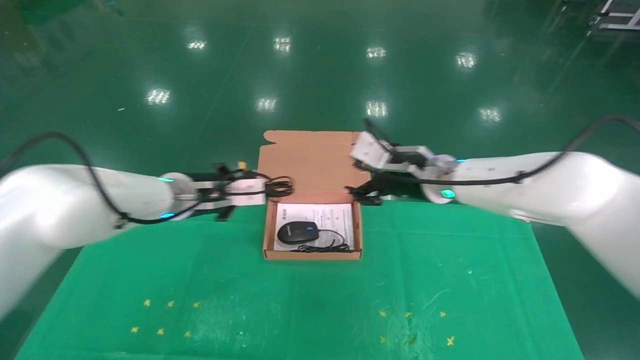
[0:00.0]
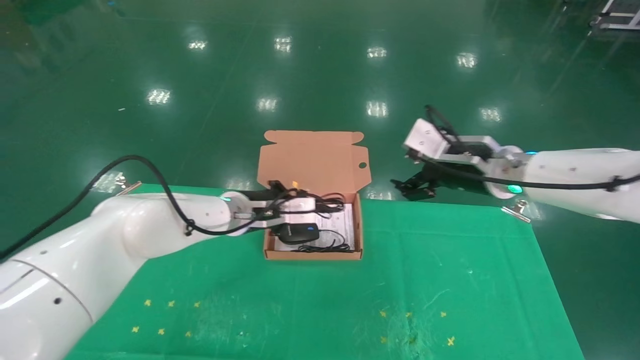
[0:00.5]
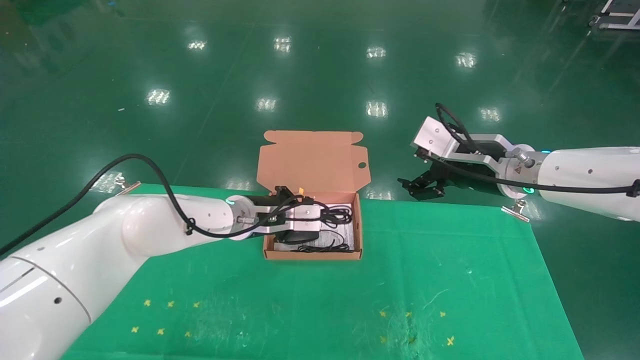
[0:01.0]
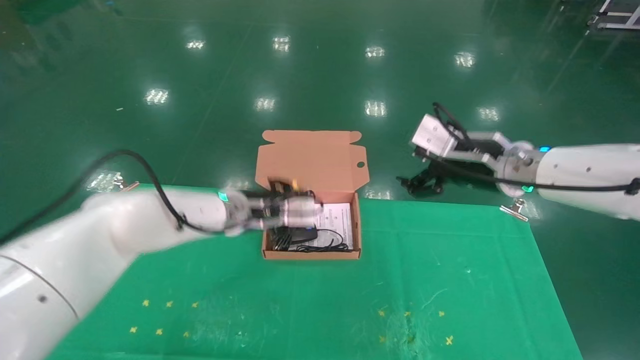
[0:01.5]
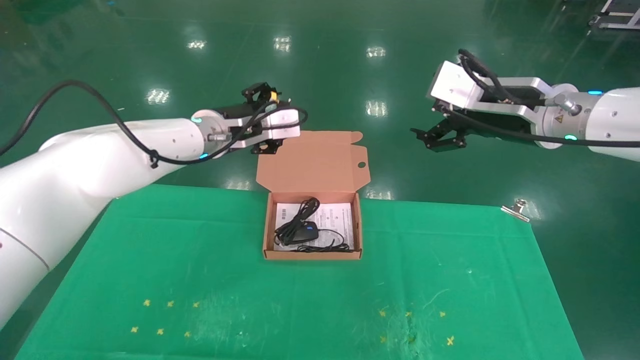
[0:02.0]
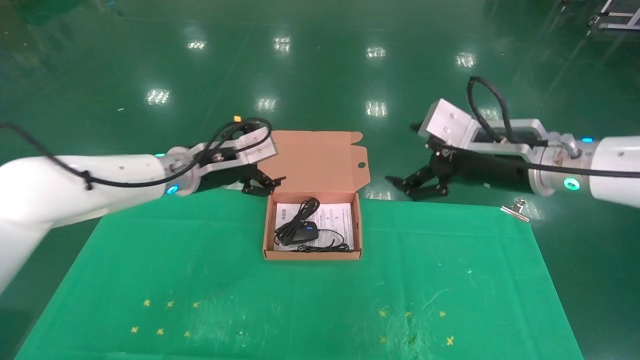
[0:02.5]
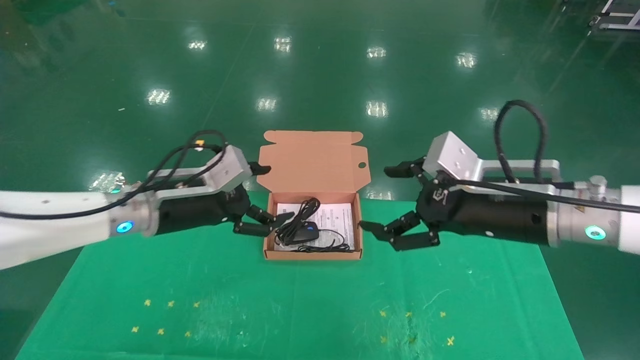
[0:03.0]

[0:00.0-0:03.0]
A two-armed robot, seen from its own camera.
Task of the whole recording: grasp data cable left put into box grasp mouse right put into box.
0:00.0 to 0:01.5: The left gripper is displaced to the right by some 5 cm, while the right gripper heads to the right, upward and backward, covering approximately 10 cm, and opens up.
0:01.5 to 0:03.0: The left gripper moves to the left and backward, some 15 cm, and opens up, while the right gripper is displaced backward by approximately 10 cm.
